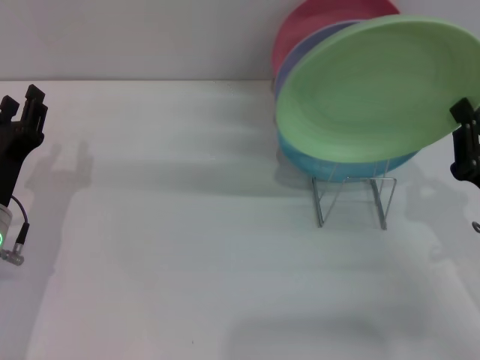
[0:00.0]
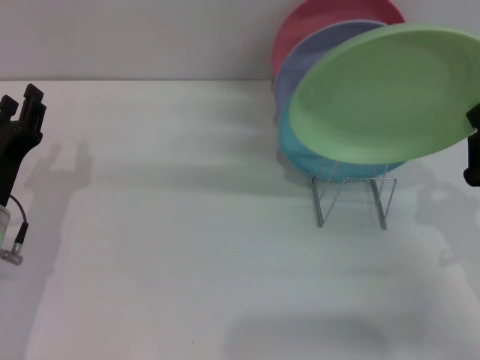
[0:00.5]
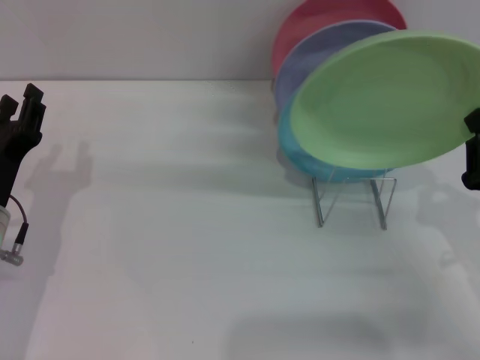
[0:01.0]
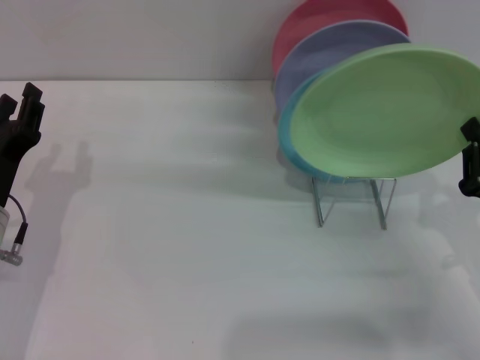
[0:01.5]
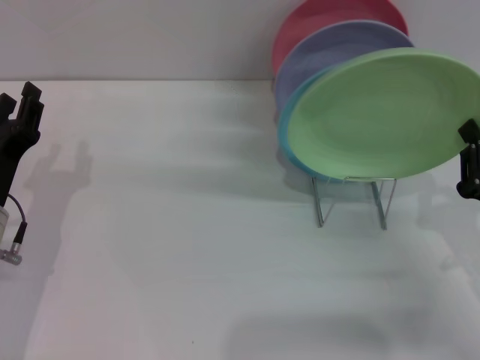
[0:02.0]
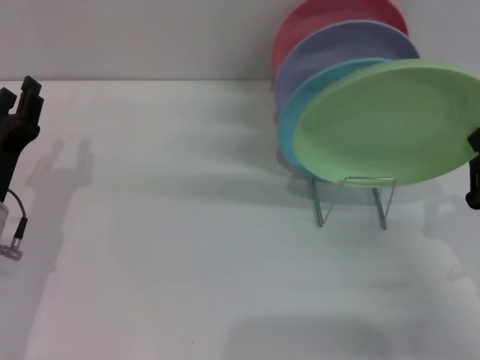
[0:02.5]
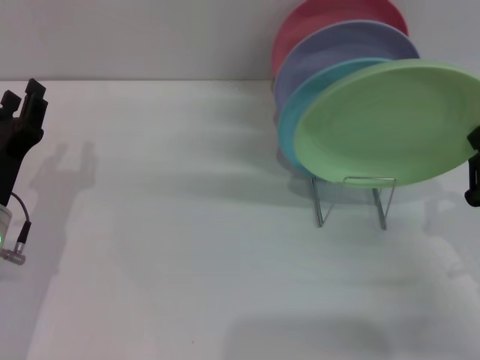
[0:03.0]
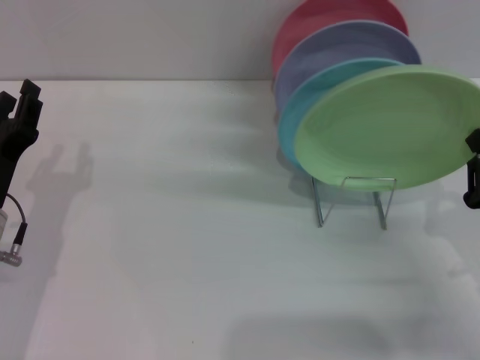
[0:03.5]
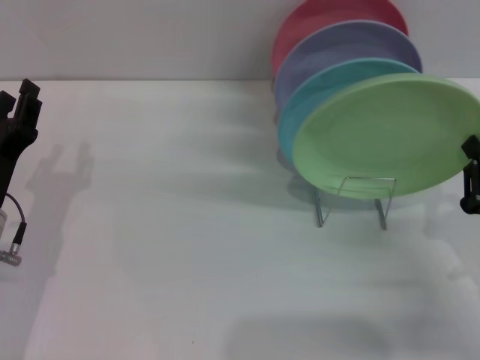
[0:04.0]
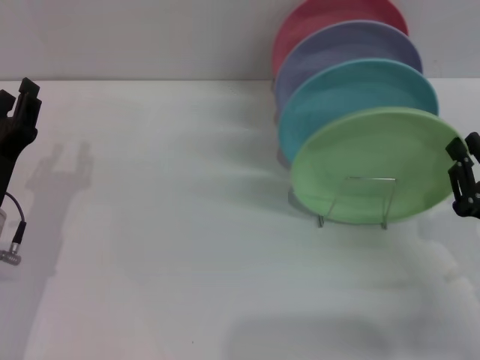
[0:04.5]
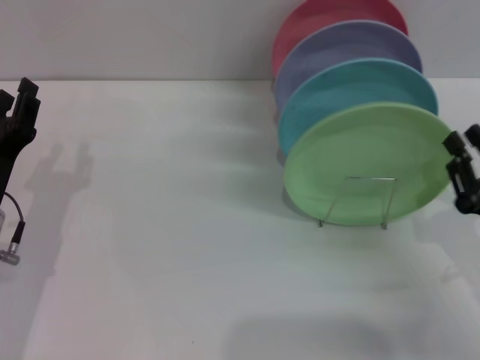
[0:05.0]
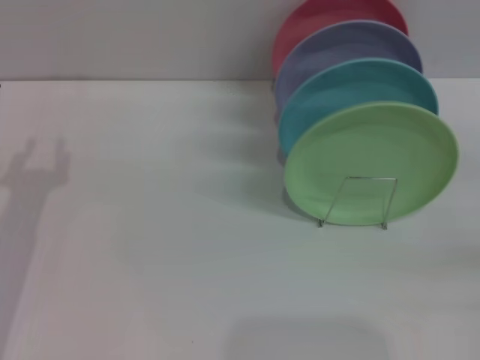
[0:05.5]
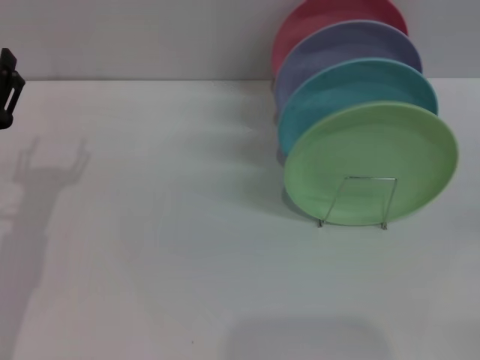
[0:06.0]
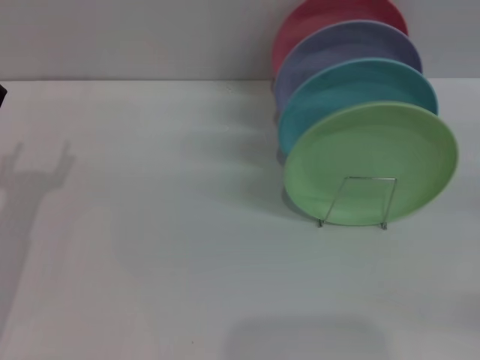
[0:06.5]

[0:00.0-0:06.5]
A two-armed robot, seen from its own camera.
Task of the whole recording: Grip the plate with one hand, pass it to the other, then set it on the shelf.
Step, 0.0 to 4.5 s: Place the plate on the shelf with the right gripper.
0.0 to 4.5 s: The grippers stay close to where they were, moving slightly.
4.5 to 6.5 s: The right gripper goes roughly 10 cm to the right, and opens its fingers.

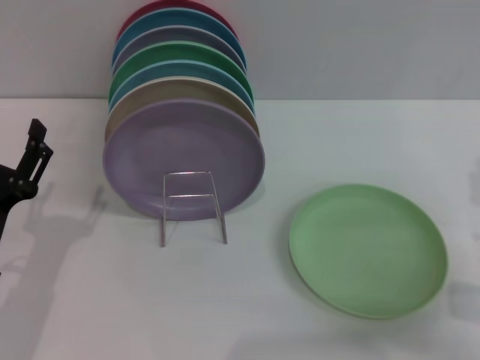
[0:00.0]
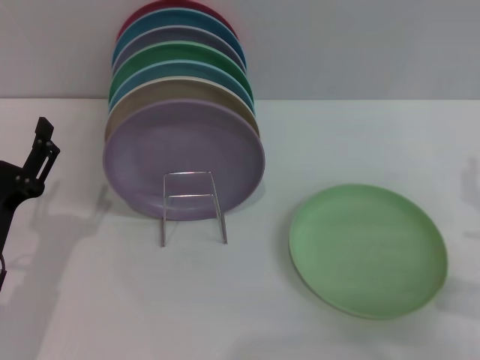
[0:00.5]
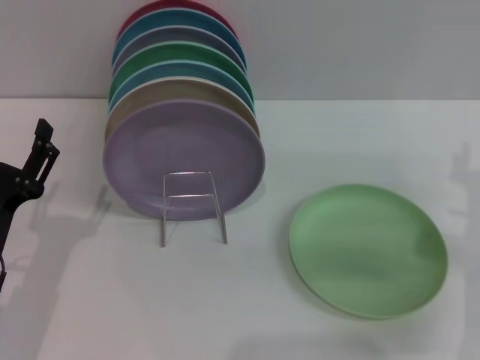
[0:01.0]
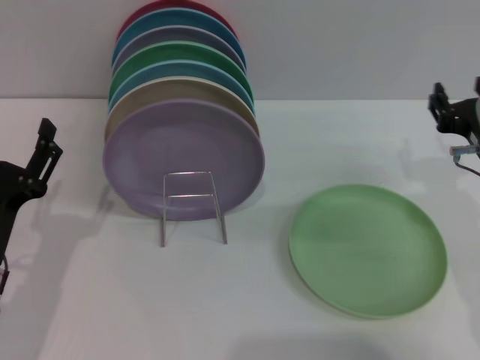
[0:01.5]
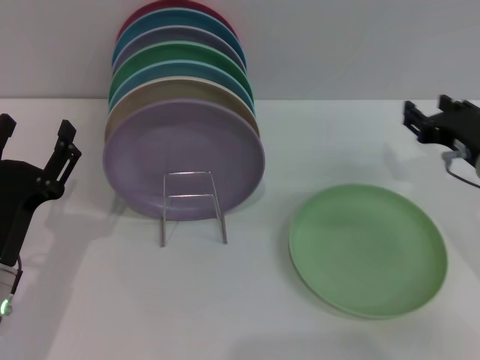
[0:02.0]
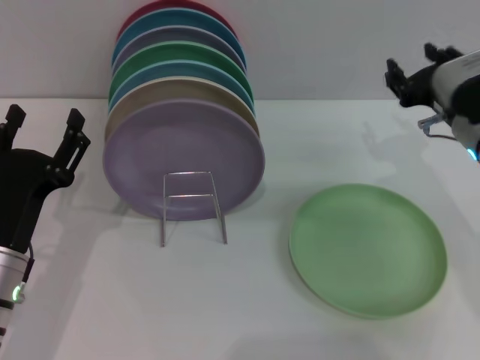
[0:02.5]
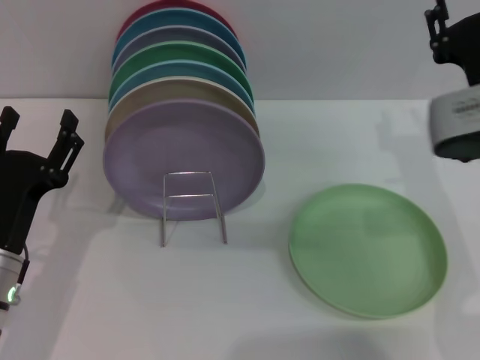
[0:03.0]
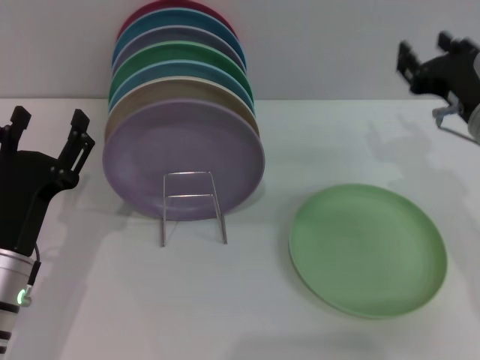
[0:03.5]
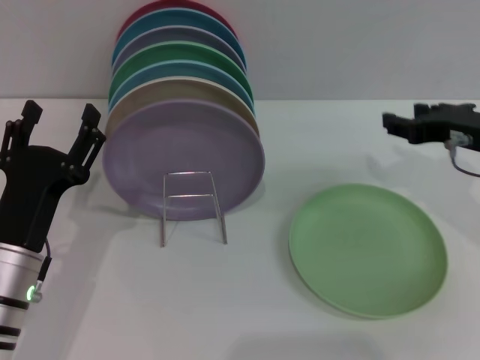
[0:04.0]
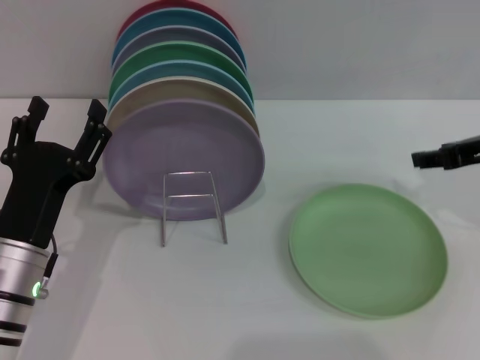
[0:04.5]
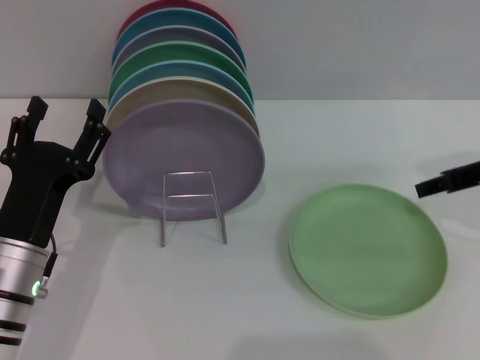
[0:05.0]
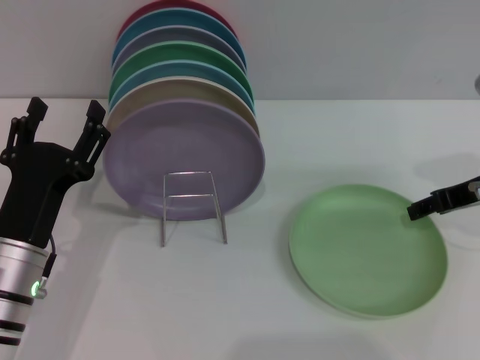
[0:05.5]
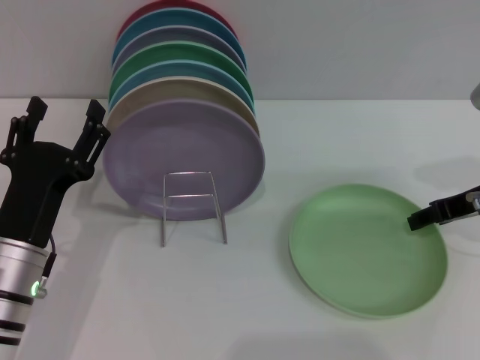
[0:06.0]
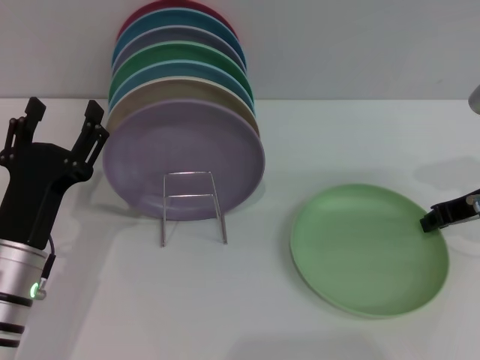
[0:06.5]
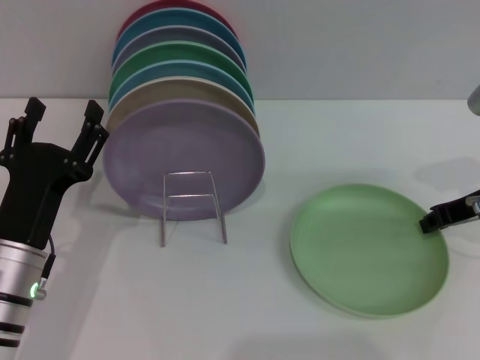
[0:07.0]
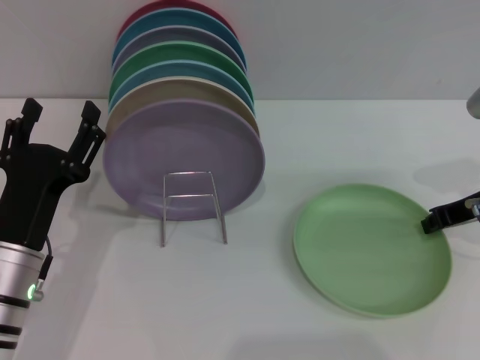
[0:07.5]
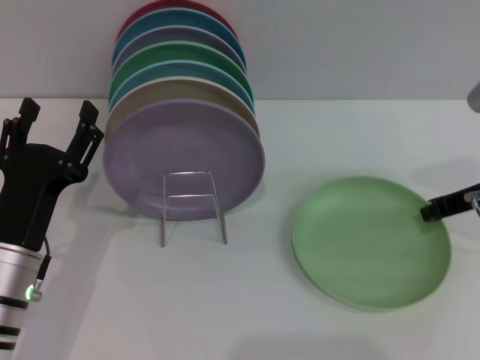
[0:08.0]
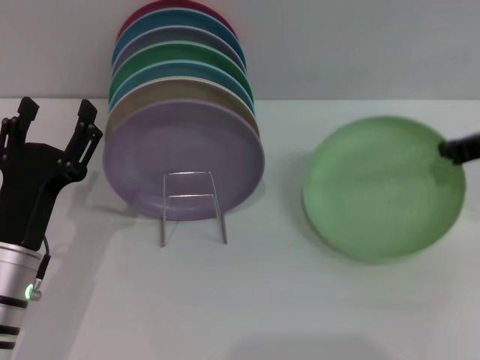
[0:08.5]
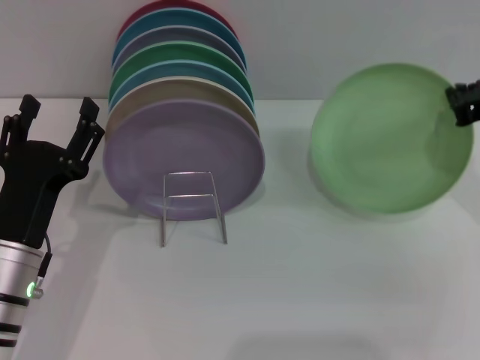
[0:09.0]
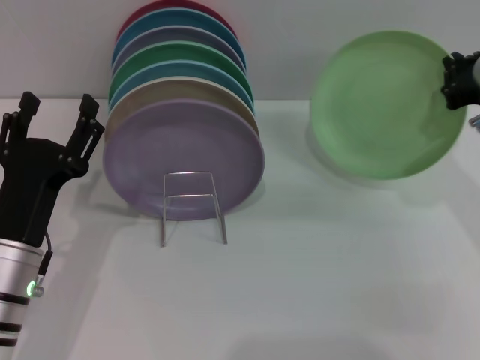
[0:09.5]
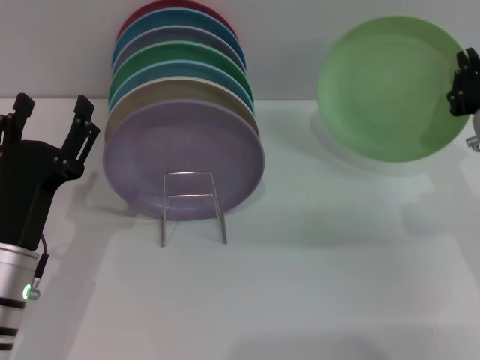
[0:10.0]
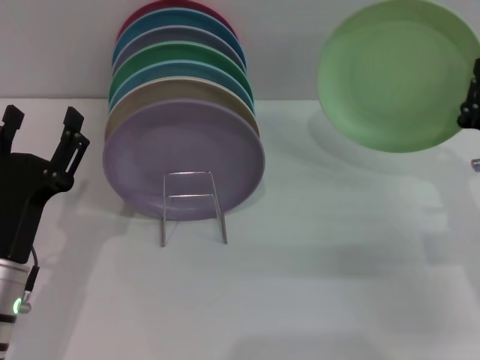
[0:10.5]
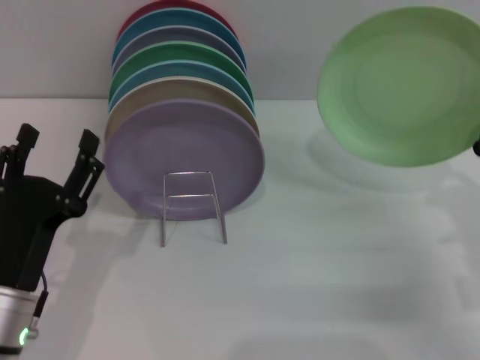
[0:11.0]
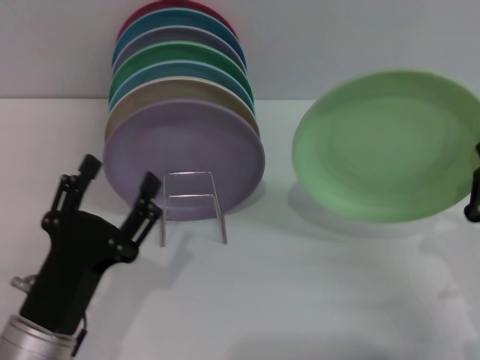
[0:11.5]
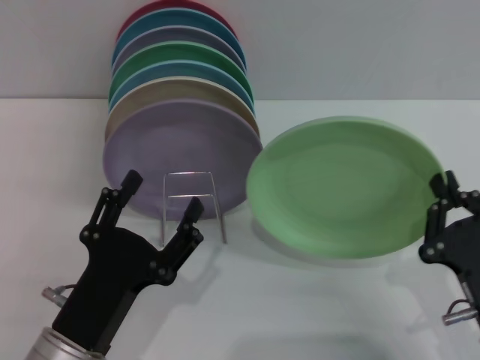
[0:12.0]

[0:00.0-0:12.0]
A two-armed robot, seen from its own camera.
Task of the whole recording: Grip the plate with one hand, pass it to the other, then set it on the shelf.
Step, 0.0 to 11.0 s: Pick up the plate with the right gripper.
0.0 to 2.0 s: The right gripper is displaced forward by about 10 cm.
6.0 to 8.0 s: The right gripper closes.
10.0 to 12.0 s: The right gripper travels backward and downward by some 20 cm; the left gripper goes about 10 cm backward.

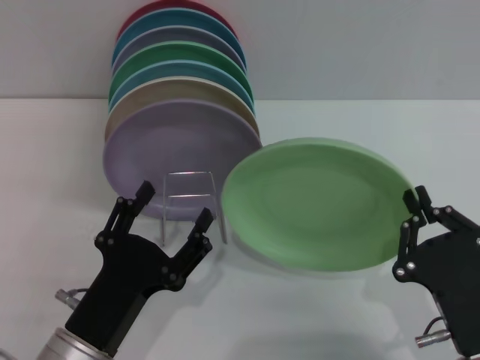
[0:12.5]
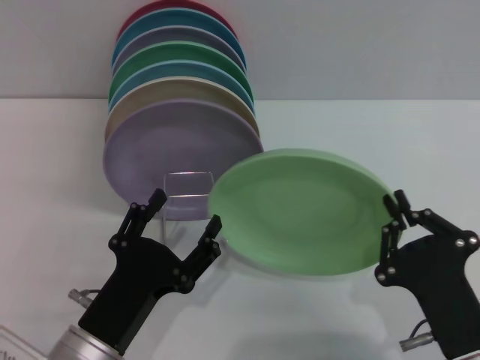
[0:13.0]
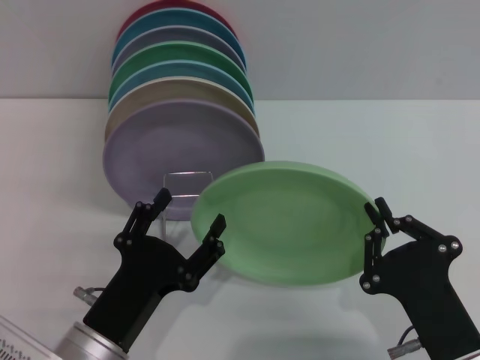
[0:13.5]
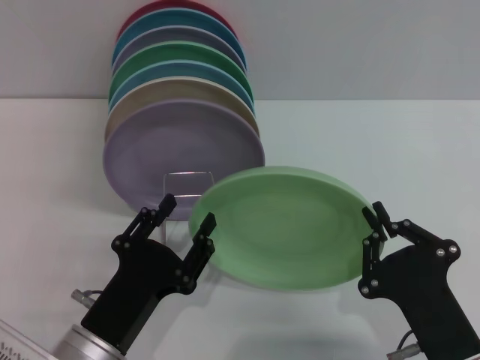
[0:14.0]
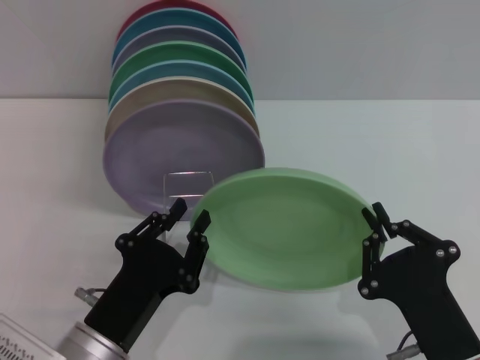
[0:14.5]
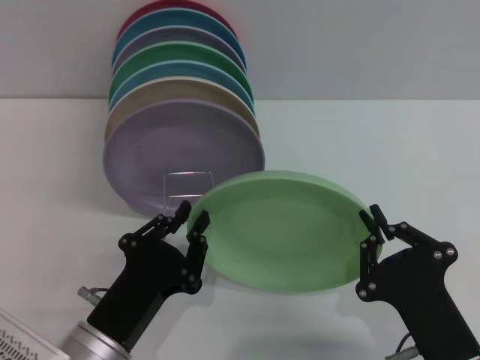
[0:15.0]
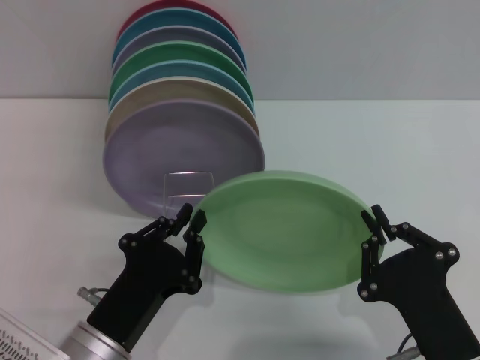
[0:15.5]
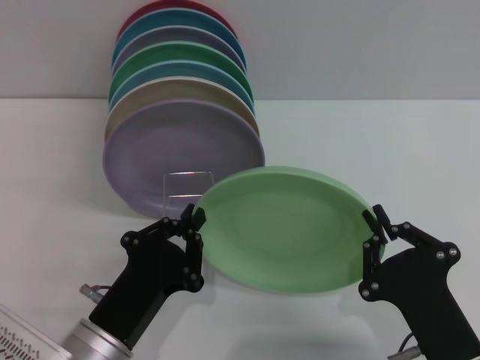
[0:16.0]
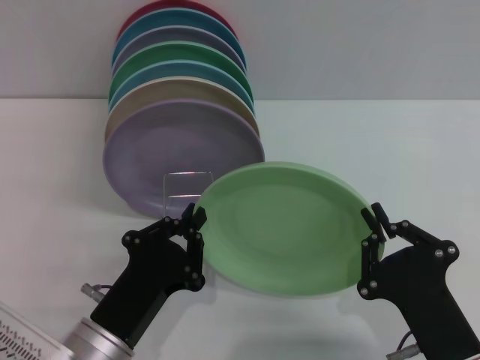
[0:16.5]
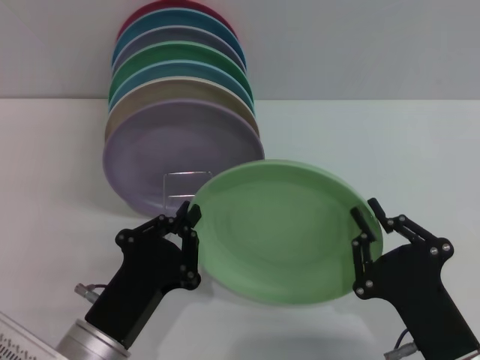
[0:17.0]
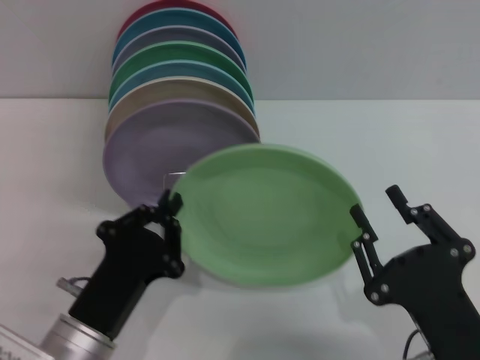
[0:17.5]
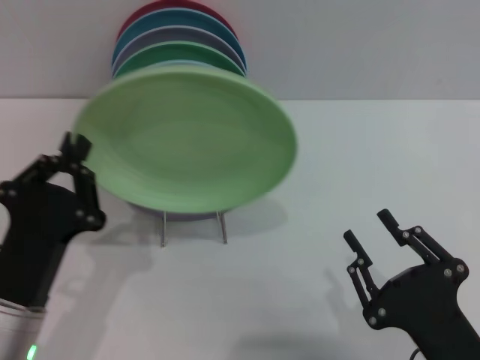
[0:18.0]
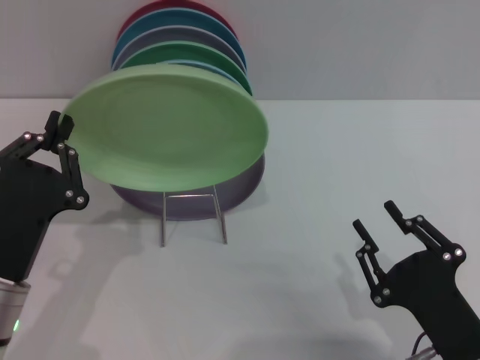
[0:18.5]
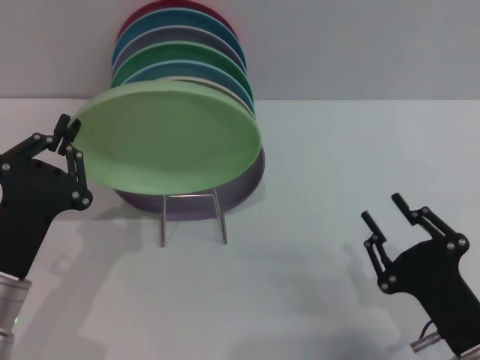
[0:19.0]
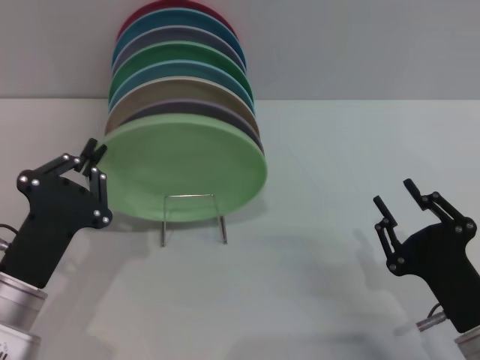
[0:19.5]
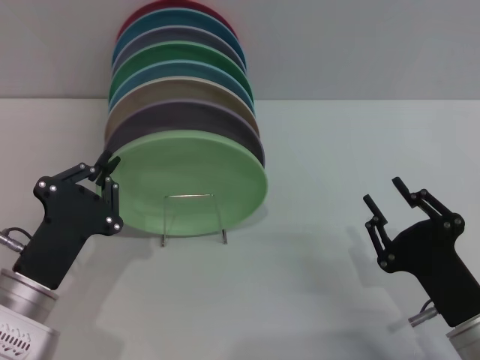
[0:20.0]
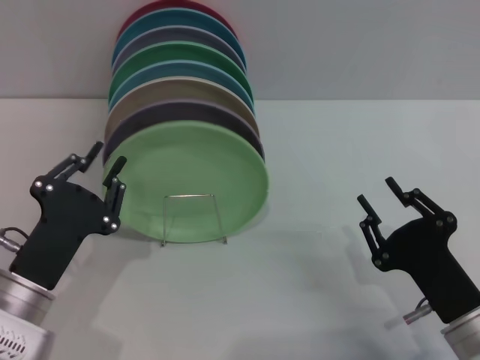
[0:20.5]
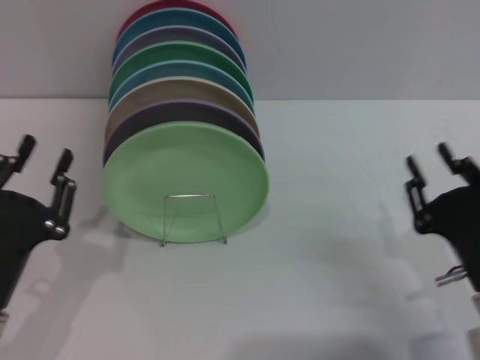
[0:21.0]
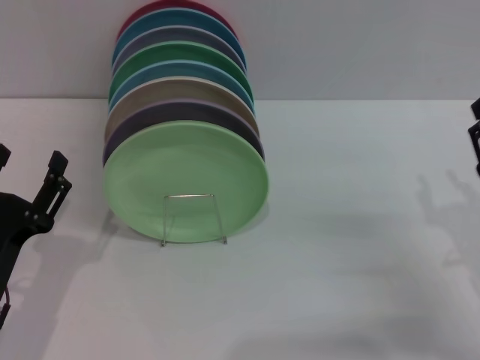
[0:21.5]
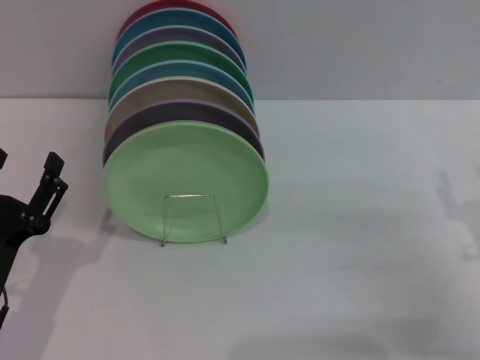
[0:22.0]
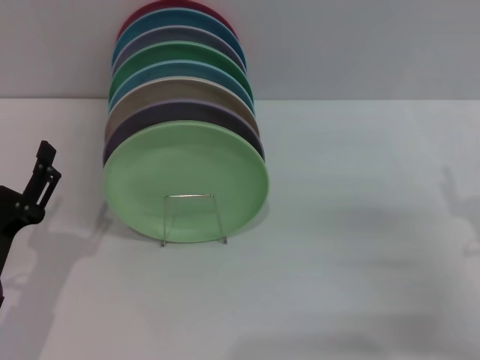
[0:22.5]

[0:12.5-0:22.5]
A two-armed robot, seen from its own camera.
Task of the whole recording: Grip the plate with one hand, pass it to the other, then set it on the shelf.
Step, 12.5 to 17.5 s: Pass the plate from the right gripper to the left gripper.
Step, 18.0 to 21.0 s: Place the plate on the shelf with the left gripper.
12.5 to 14.5 s: The left gripper closes its fingers.
14.5 to 16.5 s: Neither gripper changes place.
16.5 to 18.5 s: The left gripper moves to the left, about 5 cm; the right gripper opens its fingers.
20.5 to 22.5 s: The left gripper opens its fingers, while the right gripper goes approximately 10 cm to the right, and opens its fingers.
